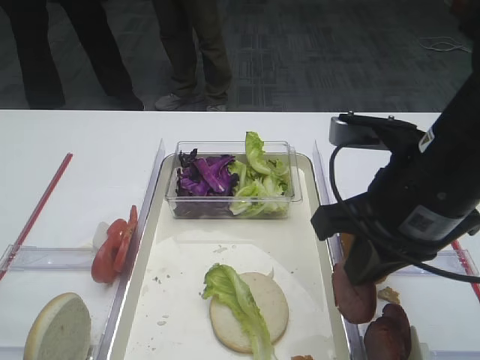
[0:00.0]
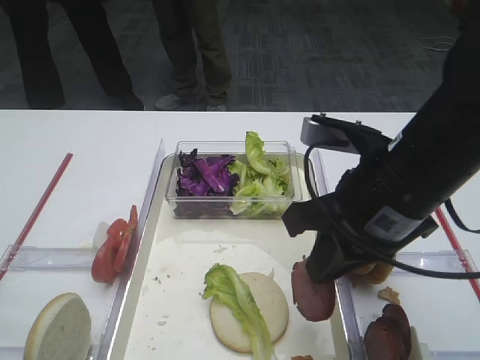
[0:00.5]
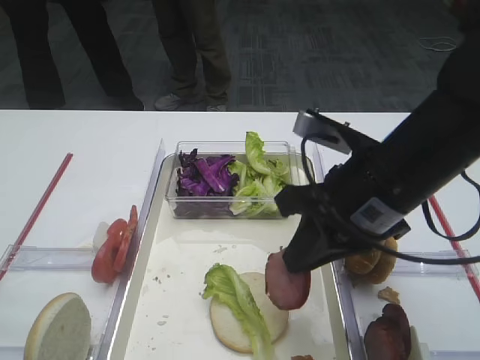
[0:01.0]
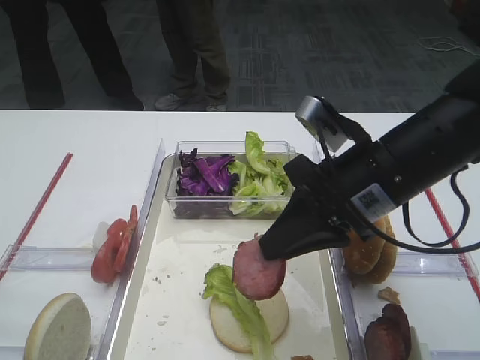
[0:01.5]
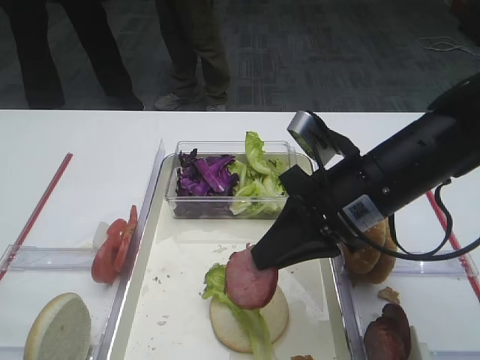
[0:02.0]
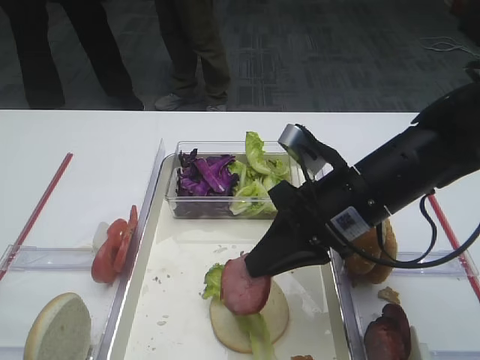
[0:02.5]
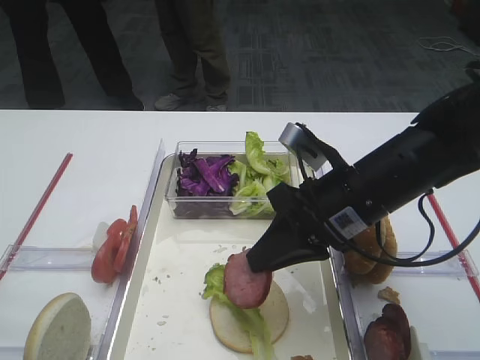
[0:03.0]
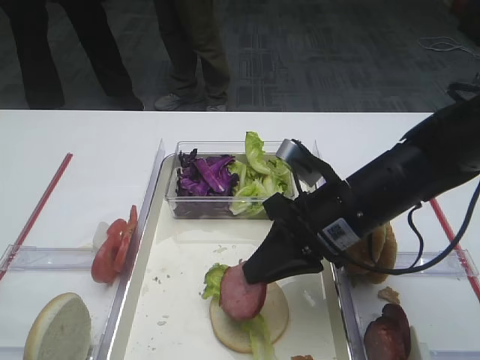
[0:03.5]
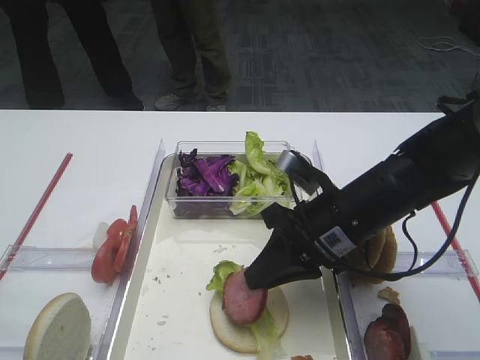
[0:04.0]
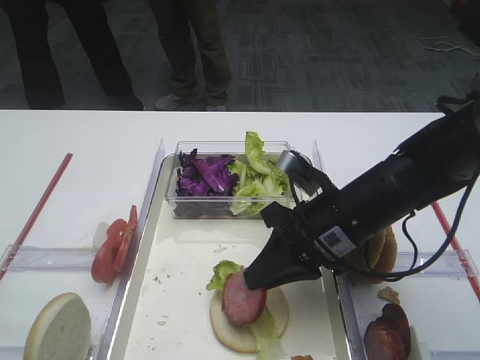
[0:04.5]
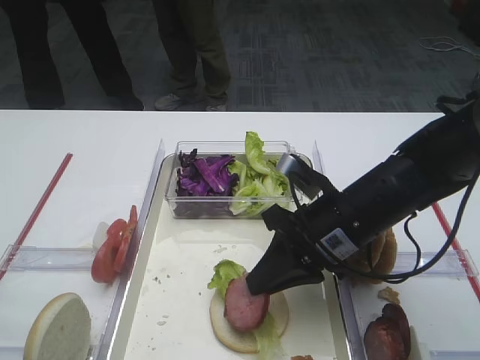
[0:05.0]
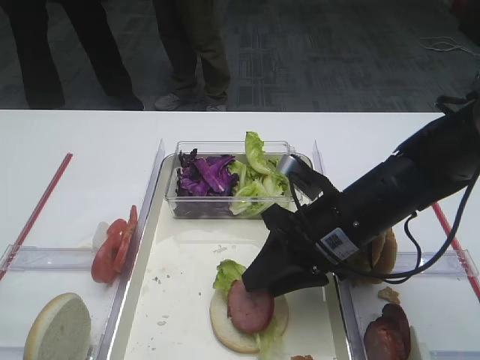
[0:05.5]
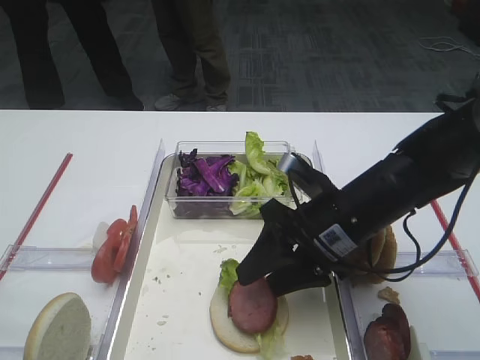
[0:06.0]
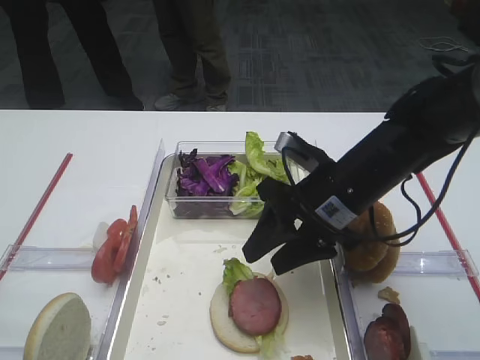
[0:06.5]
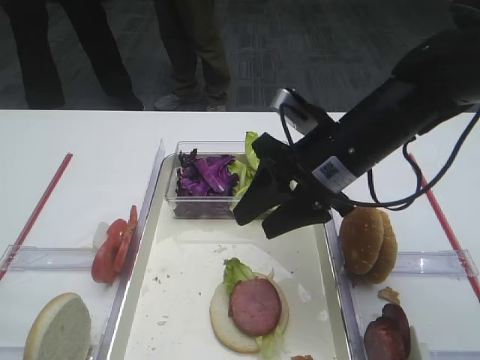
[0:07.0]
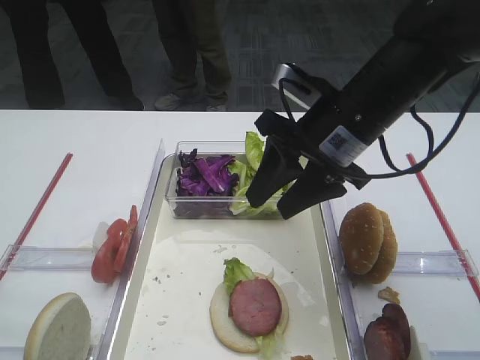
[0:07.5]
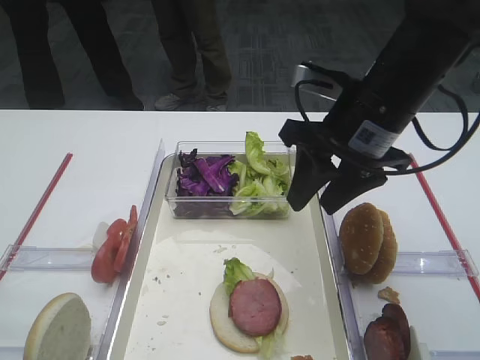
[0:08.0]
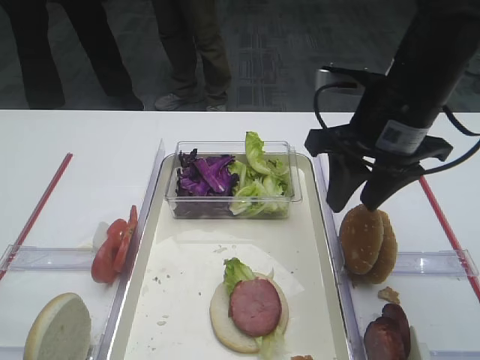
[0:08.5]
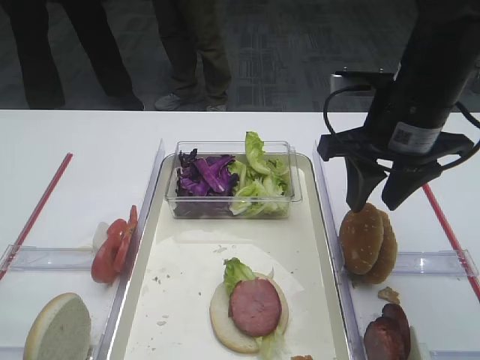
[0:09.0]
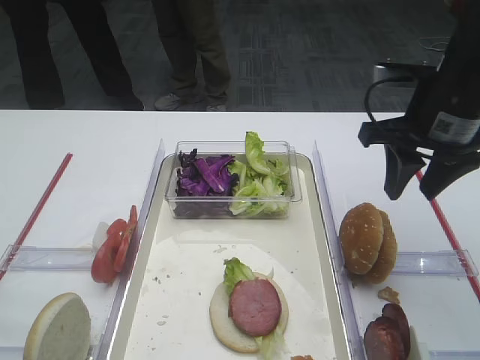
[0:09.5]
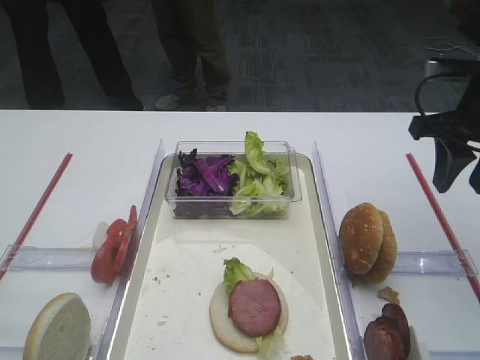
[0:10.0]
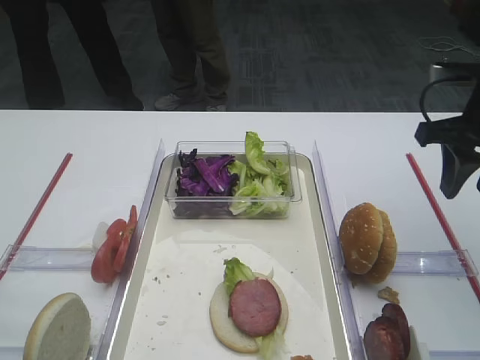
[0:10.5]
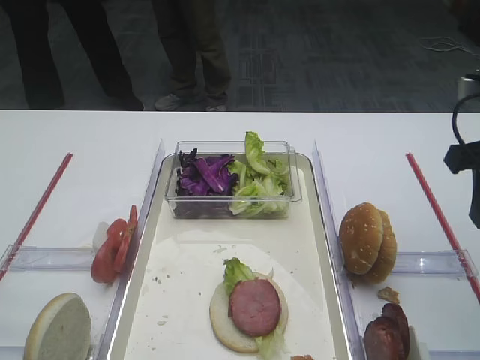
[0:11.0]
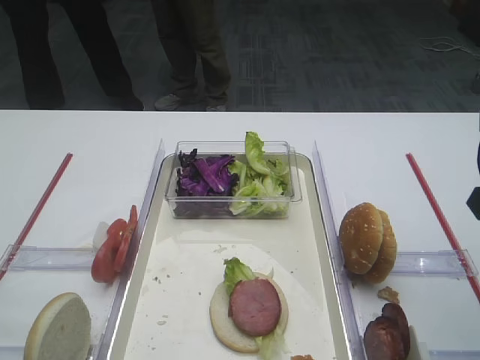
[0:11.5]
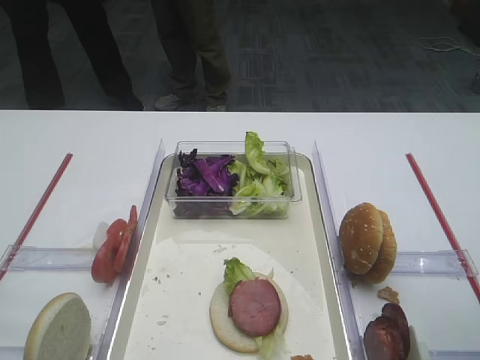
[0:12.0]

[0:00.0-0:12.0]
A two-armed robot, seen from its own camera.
Step, 0:00.0 to 0:06.5: Place the cutlet on the lettuce leaf with the right gripper.
0:00.0 to 0:02.0: The right gripper heads forward, covering some 5 cm.
0:02.0 to 0:04.0: The right gripper heads downward, covering some 5 cm.
0:04.0 to 0:06.0: The right gripper opens its fingers.
0:06.0 to 0:08.0: The right gripper goes about 10 cm upward.
0:08.0 to 0:10.0: The right gripper heads to the right, covering approximately 15 cm.
0:10.0 to 0:12.0: The right gripper travels backward by roughly 15 cm.

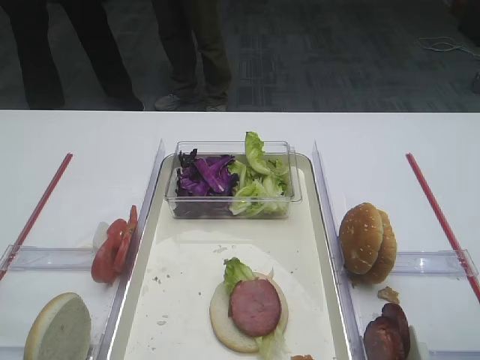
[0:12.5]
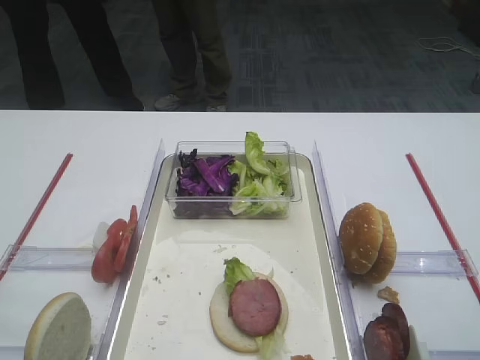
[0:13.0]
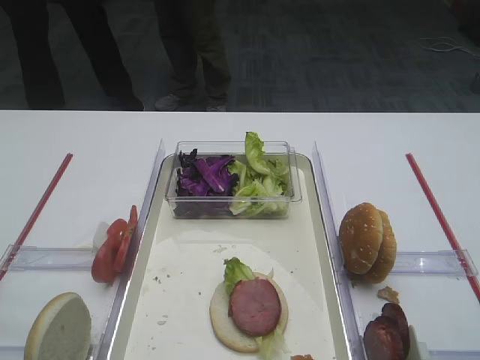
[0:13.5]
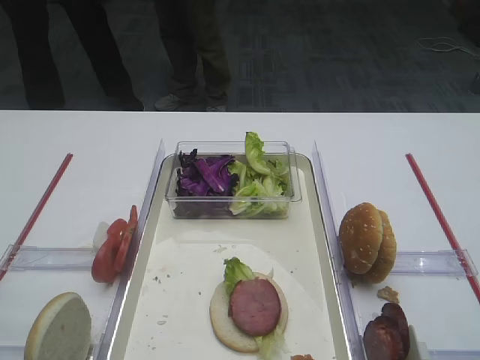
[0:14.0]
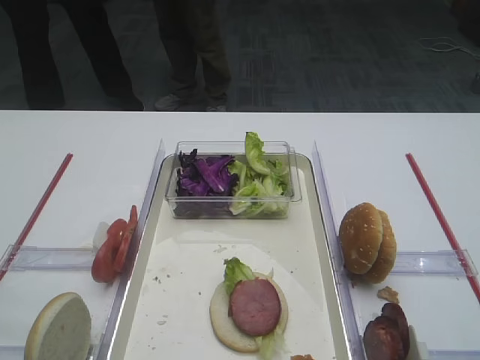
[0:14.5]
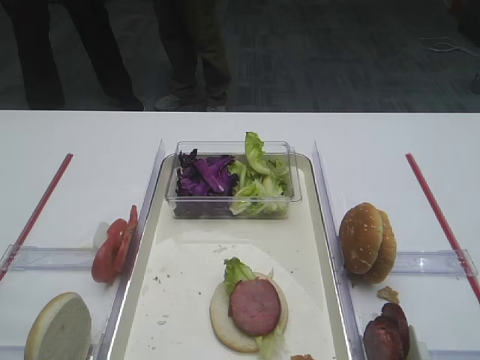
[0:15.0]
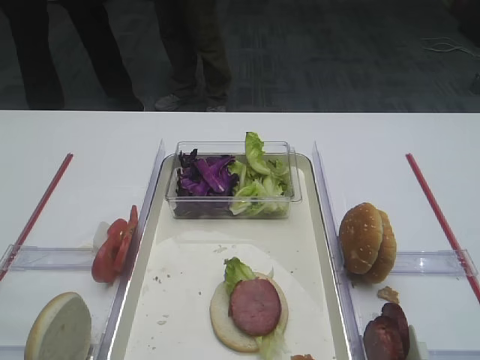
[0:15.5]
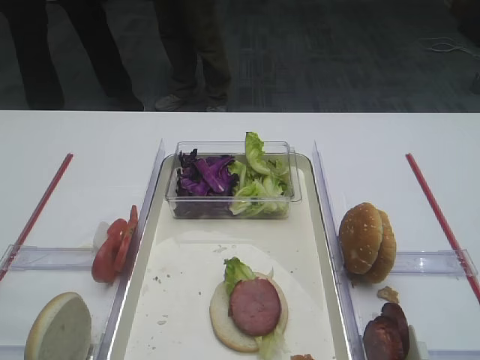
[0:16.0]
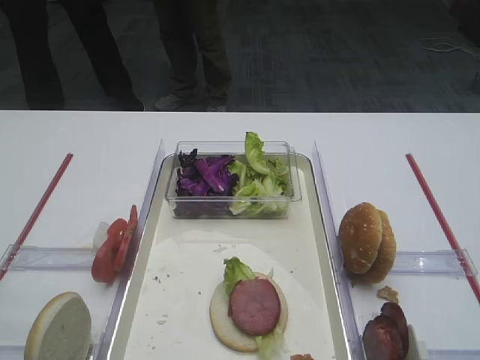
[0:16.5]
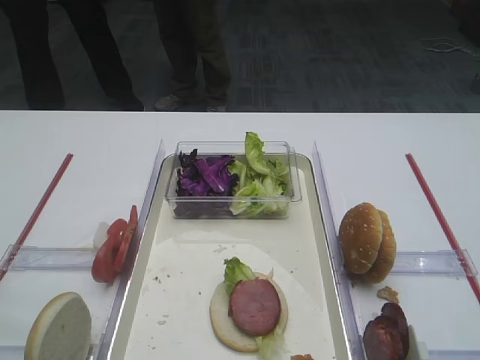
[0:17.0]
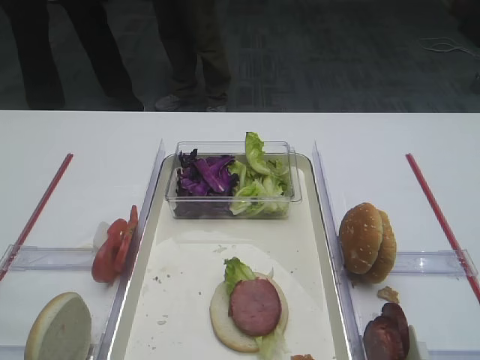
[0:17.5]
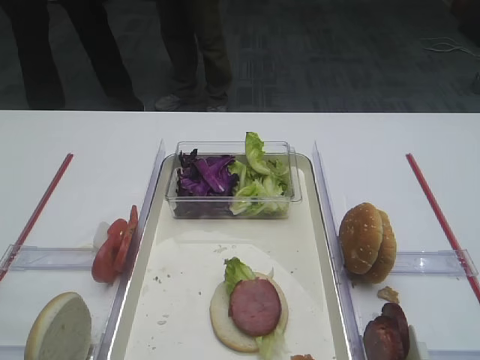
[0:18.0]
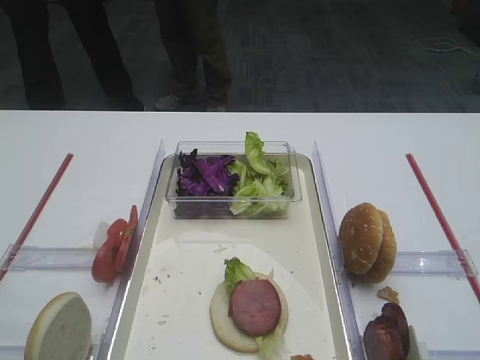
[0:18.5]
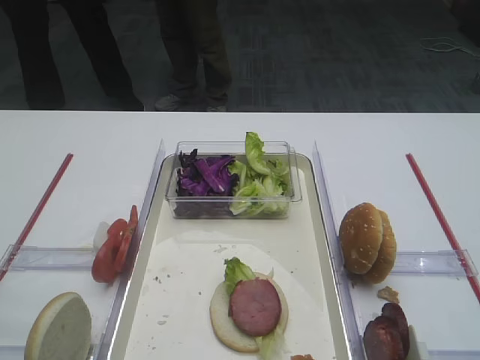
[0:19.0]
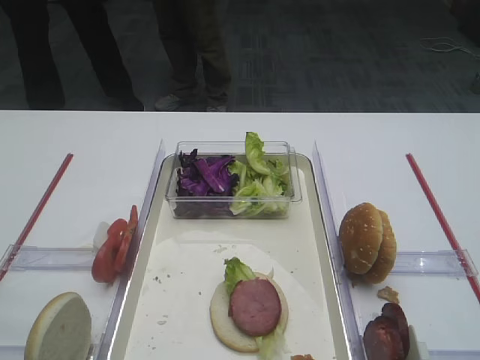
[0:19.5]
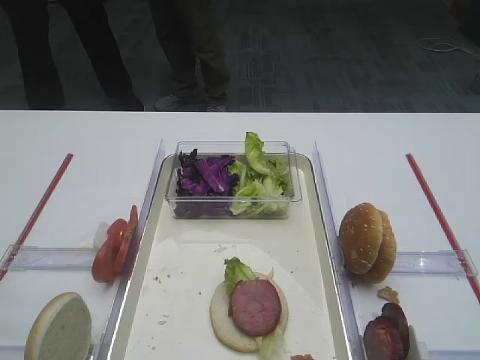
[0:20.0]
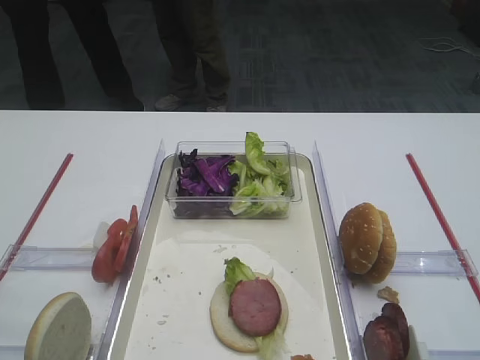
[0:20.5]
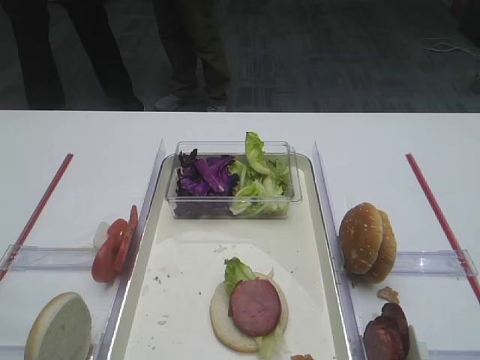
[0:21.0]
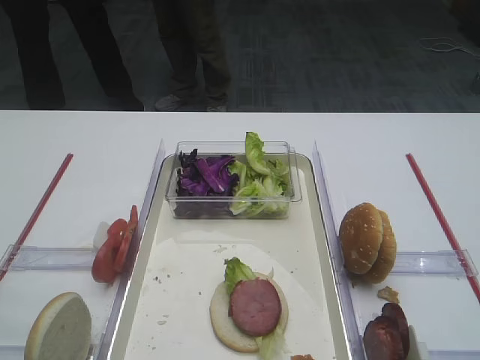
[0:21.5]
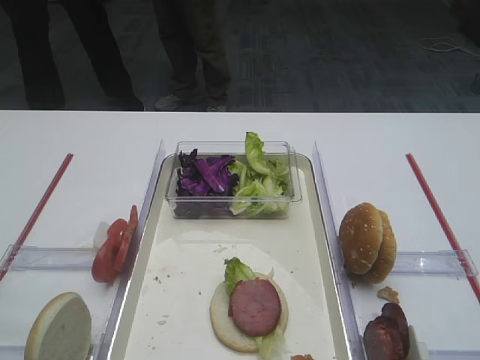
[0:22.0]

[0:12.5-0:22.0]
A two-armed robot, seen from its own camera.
0:16.5 to 0:22.0: The two grippers keep their place.

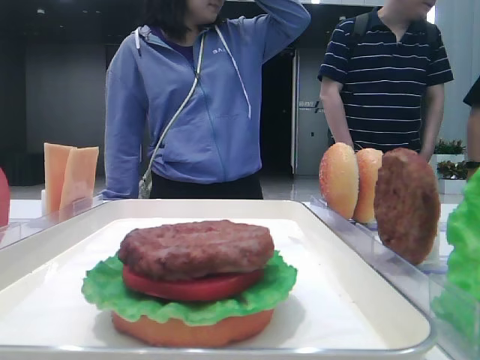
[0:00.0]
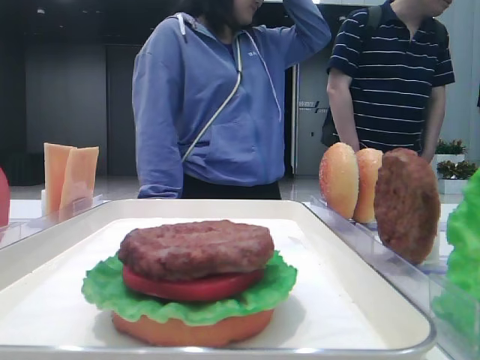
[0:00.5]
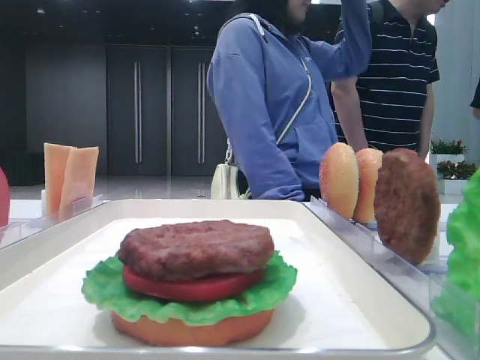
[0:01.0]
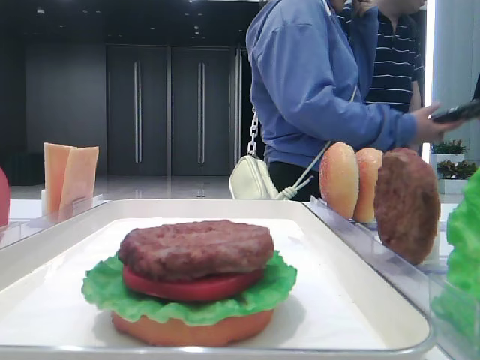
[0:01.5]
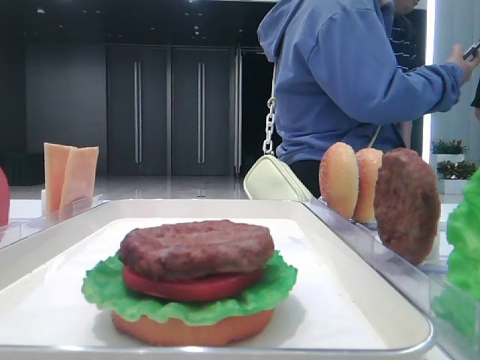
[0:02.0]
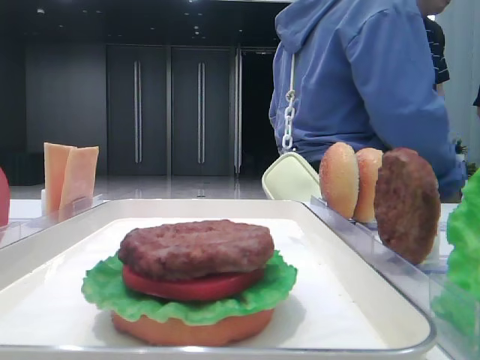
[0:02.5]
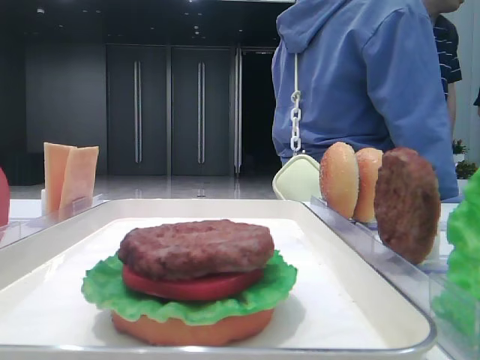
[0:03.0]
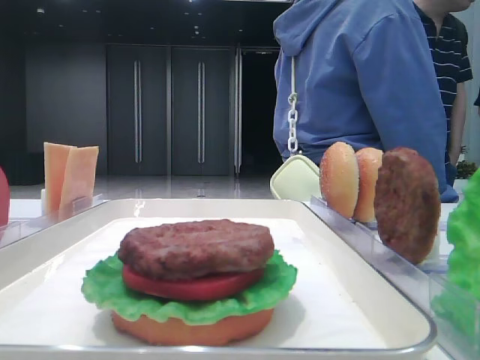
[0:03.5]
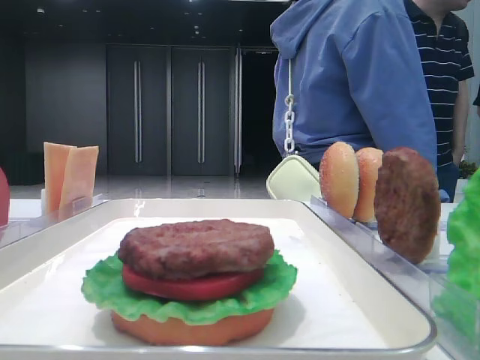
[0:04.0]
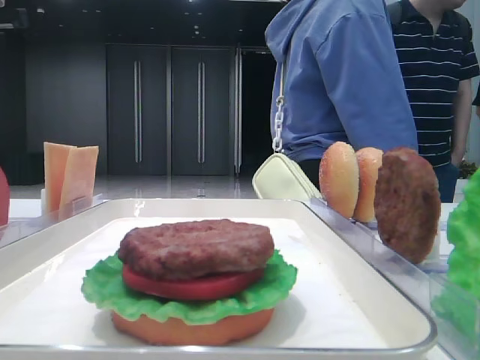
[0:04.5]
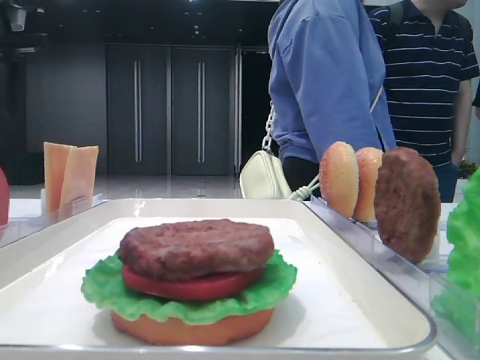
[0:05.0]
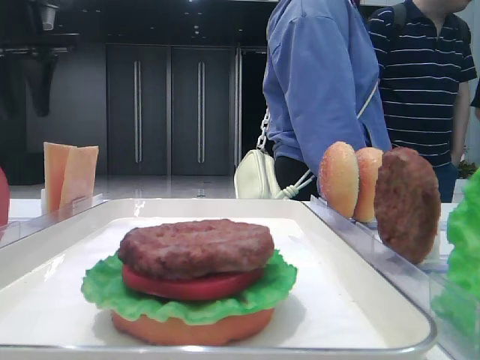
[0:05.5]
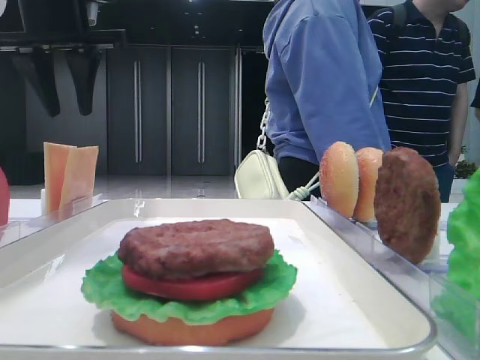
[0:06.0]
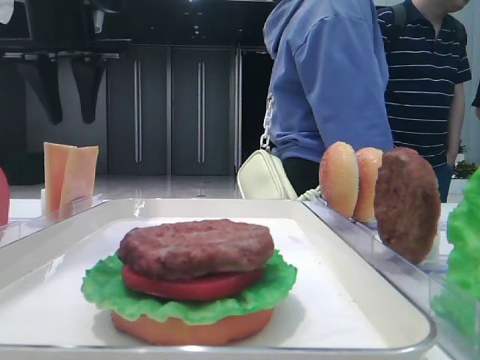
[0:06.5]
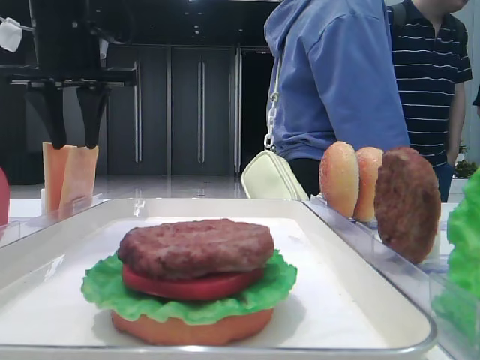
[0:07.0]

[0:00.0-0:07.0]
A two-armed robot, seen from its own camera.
0:02.0 to 0:03.5: The left gripper heads forward, covering about 20 cm.
0:03.5 to 0:05.0: The left gripper is displaced forward by some 15 cm.
0:05.0 to 0:07.0: The left gripper heads to the right, covering approximately 10 cm.
